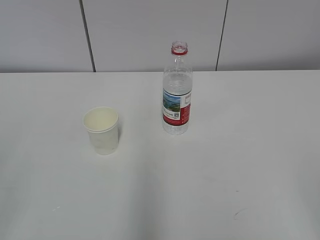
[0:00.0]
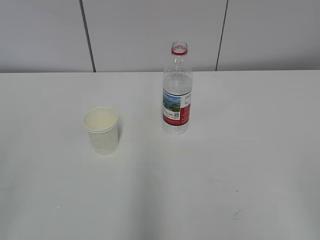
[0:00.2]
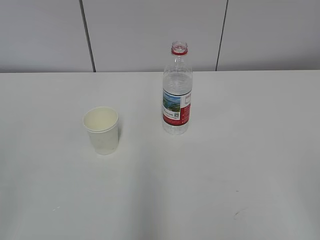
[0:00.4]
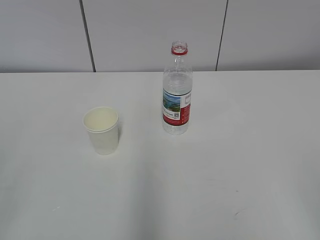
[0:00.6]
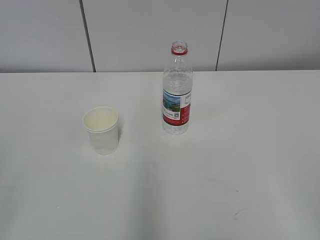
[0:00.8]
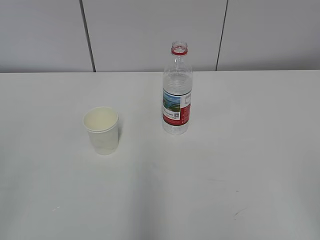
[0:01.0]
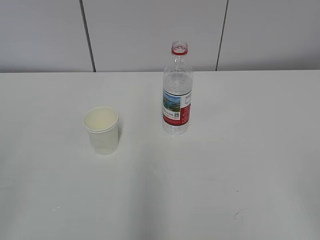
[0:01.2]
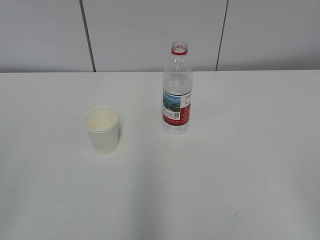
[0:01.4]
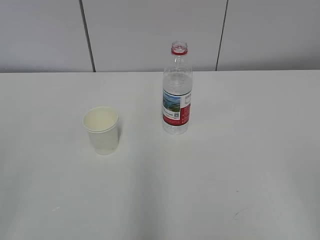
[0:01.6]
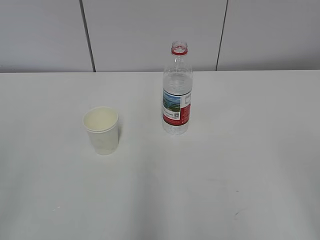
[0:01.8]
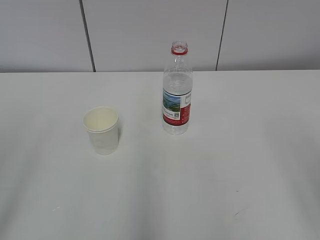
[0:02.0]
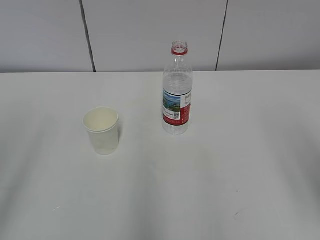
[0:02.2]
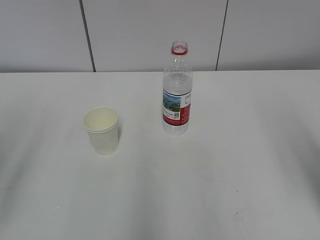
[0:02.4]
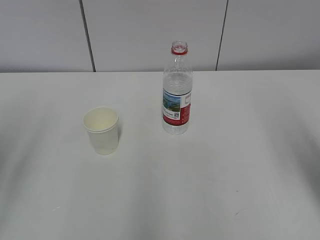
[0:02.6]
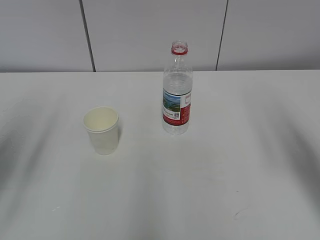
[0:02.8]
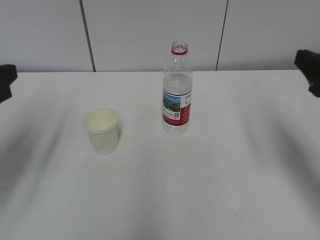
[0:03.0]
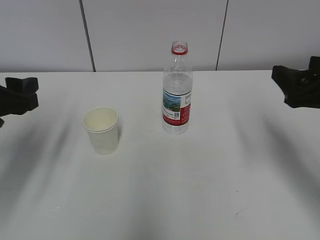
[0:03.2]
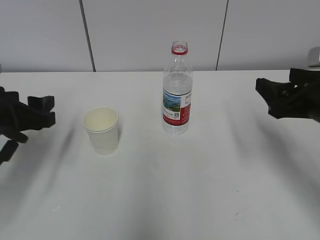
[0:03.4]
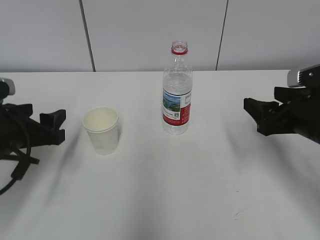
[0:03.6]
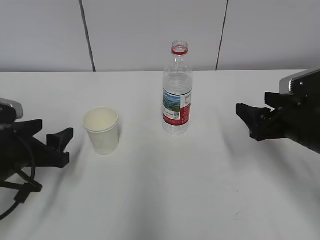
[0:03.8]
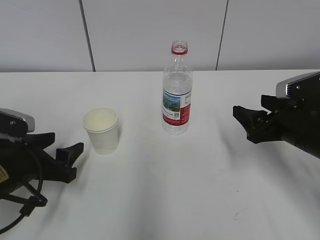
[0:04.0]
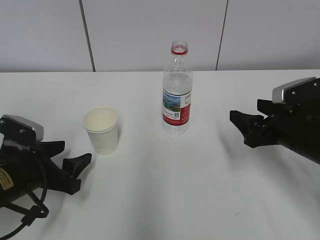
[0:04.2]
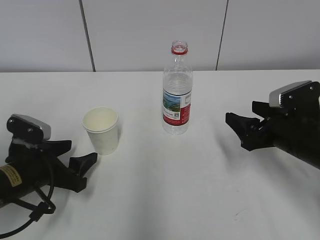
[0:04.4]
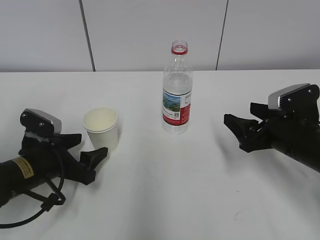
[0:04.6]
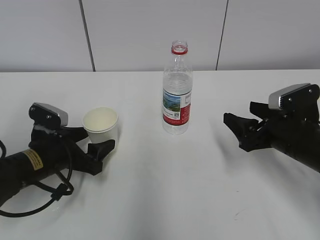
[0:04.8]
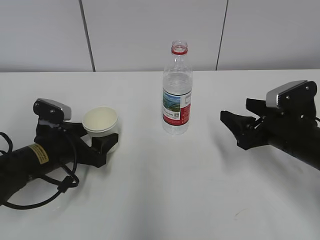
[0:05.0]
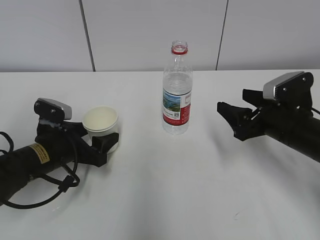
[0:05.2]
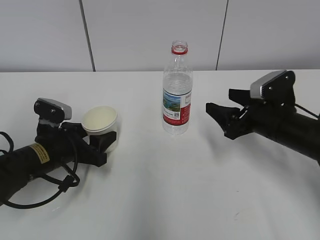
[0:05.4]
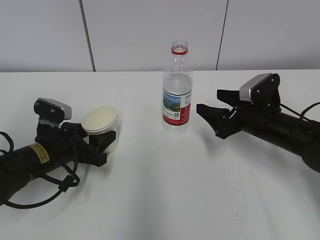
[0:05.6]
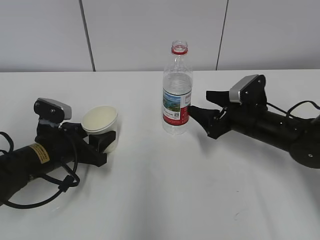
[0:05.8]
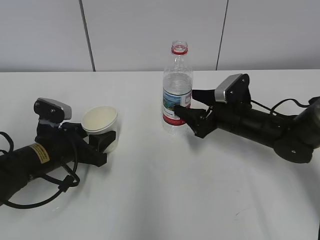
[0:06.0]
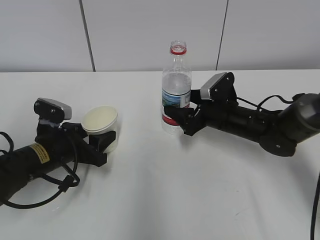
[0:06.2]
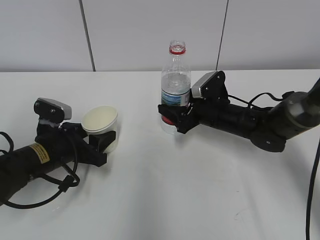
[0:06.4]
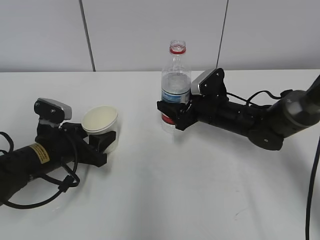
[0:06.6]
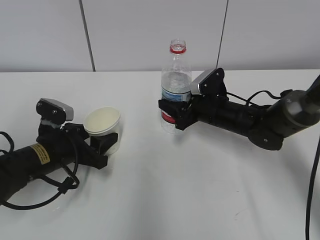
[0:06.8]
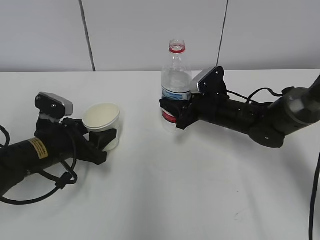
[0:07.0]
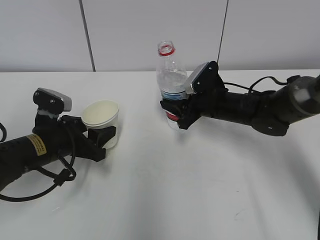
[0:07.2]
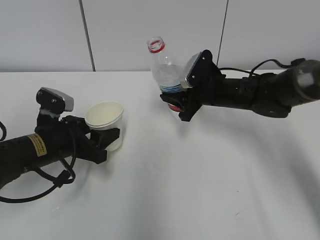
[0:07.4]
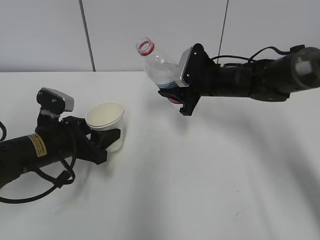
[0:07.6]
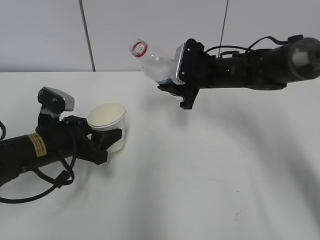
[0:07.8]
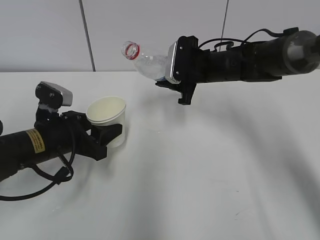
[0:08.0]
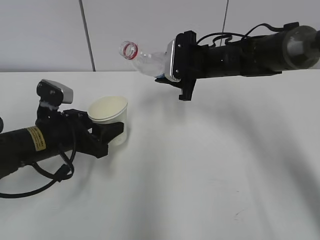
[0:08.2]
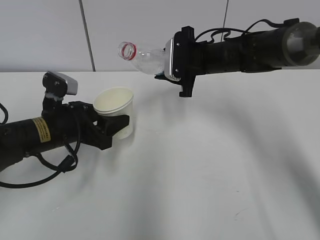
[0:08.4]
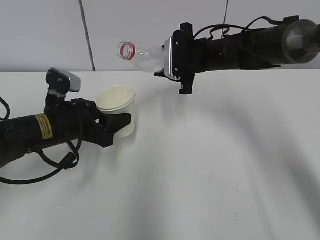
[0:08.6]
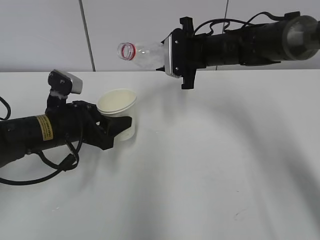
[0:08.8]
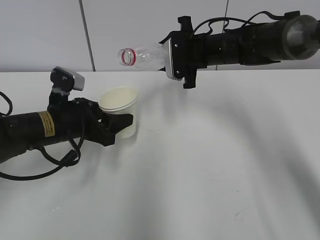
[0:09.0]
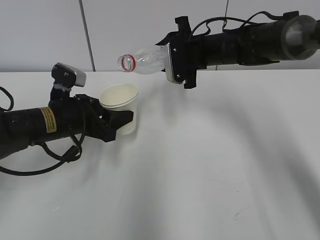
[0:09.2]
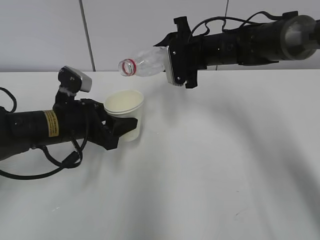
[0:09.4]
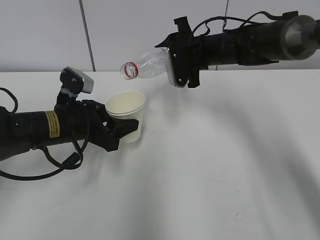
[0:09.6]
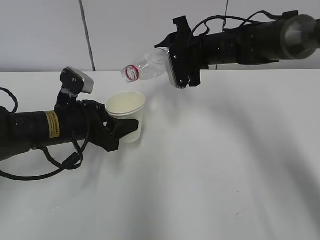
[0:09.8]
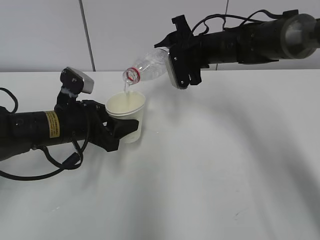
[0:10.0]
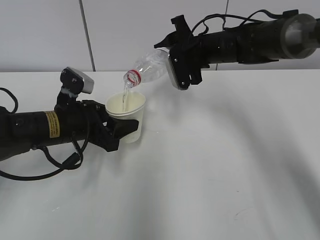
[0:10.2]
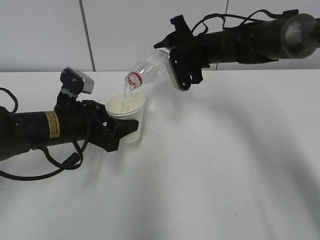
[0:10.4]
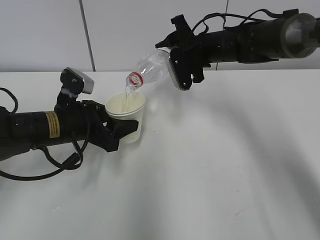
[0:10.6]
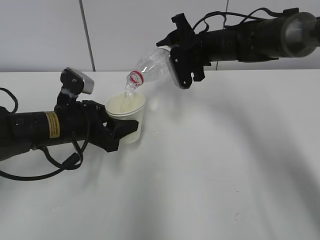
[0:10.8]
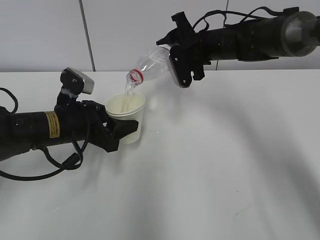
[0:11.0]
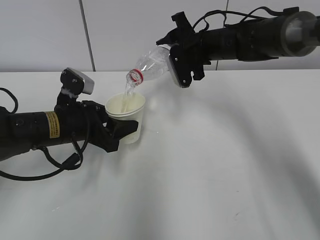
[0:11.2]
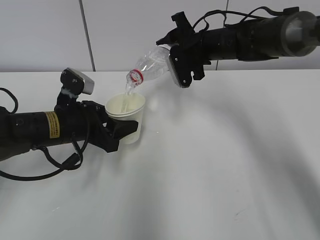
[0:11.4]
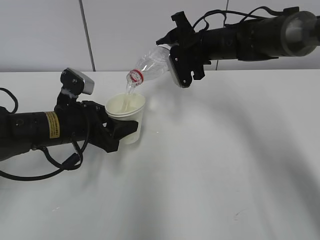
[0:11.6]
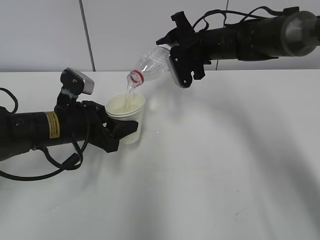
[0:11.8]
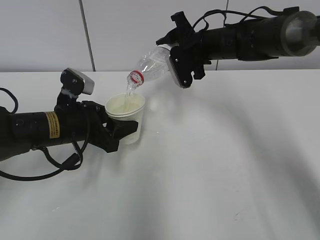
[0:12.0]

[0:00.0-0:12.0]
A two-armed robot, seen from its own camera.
Step, 0:00.0 to 0:05.6: Grab the paper cup with the left hand.
Step, 0:06.0 to 0:08.2: Lift the paper cup with the left hand.
Step, 0:08.4 to 0:10.4: Fill water with the left hand.
Step, 0:08.4 to 0:10.4: Pour water with the right hand.
Step, 0:10.6 to 0:11.2: Collect water with the right hand.
0:01.6 to 0:03.0: The two grippers go some 25 cm forward.
0:03.0 to 0:04.4: The left gripper heads downward, covering approximately 20 cm. Meanwhile the right gripper goes approximately 15 cm downward and forward.
0:04.4 to 0:06.0: The right gripper shifts some 10 cm forward and to the left; the left gripper is displaced forward by about 5 cm, and closes its fingers.
0:06.0 to 0:07.6: The right gripper goes some 10 cm forward and upward, and closes.
0:07.6 to 0:09.0: The right gripper moves upward, some 5 cm.
0:10.4 to 0:12.0: Neither gripper changes place.

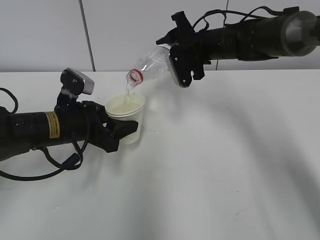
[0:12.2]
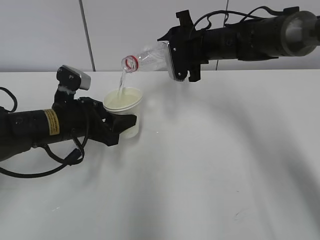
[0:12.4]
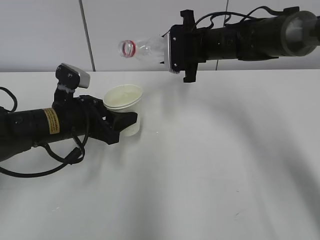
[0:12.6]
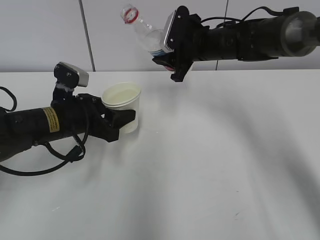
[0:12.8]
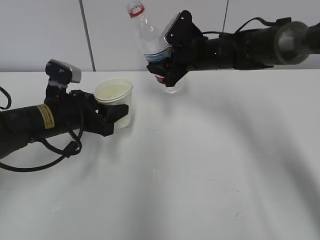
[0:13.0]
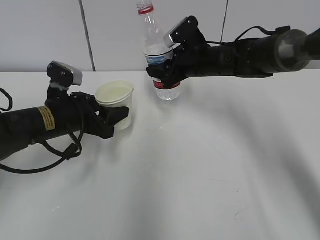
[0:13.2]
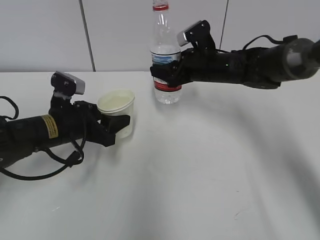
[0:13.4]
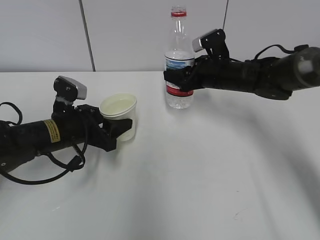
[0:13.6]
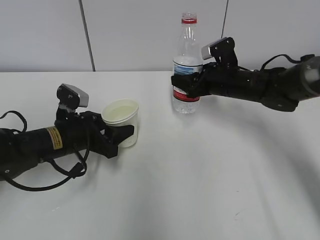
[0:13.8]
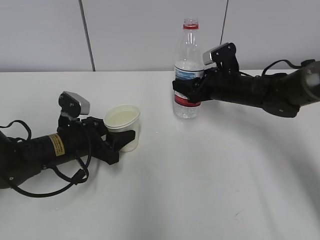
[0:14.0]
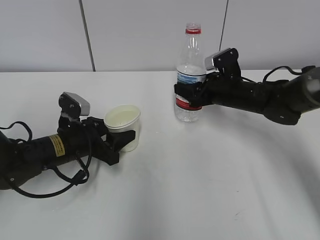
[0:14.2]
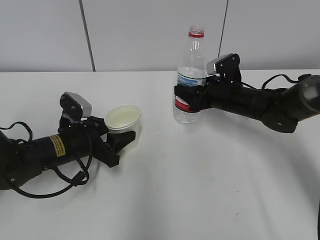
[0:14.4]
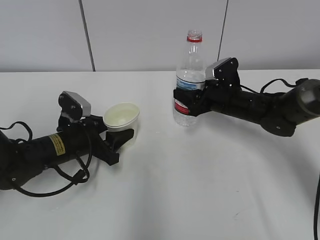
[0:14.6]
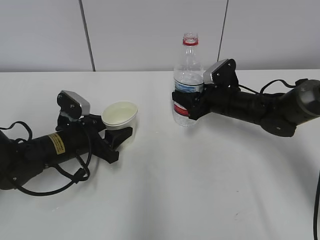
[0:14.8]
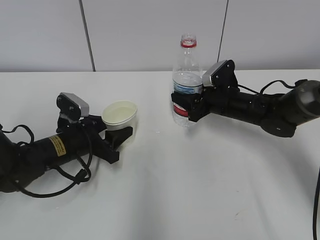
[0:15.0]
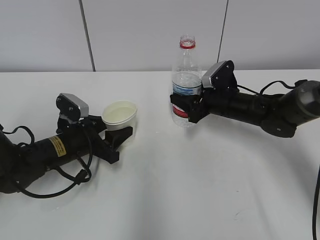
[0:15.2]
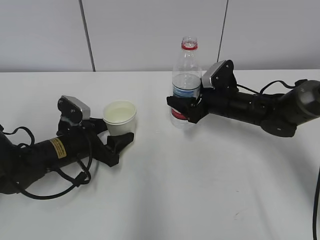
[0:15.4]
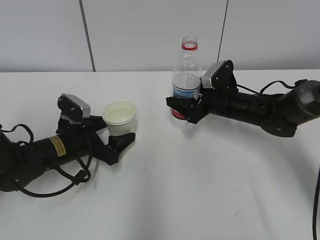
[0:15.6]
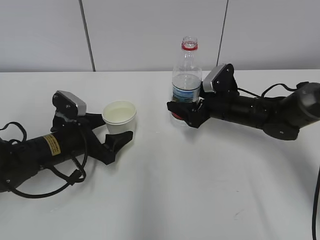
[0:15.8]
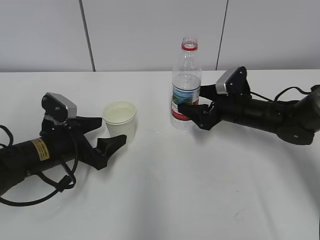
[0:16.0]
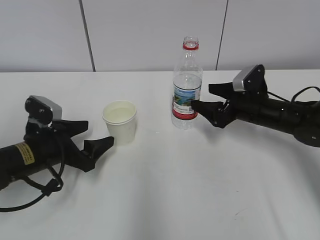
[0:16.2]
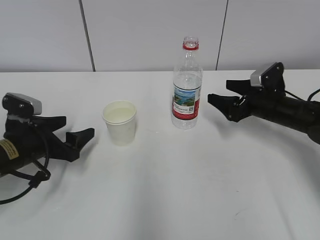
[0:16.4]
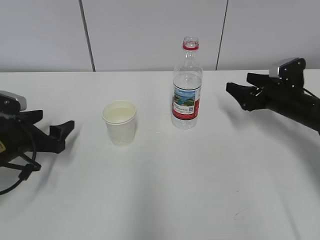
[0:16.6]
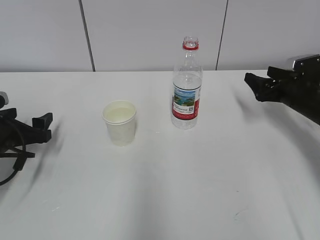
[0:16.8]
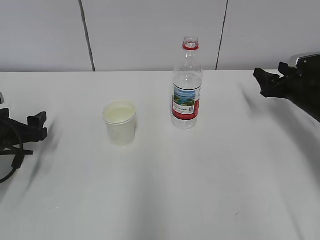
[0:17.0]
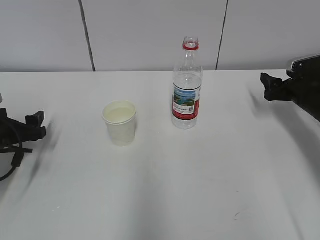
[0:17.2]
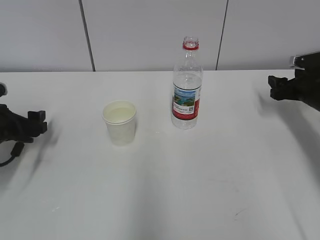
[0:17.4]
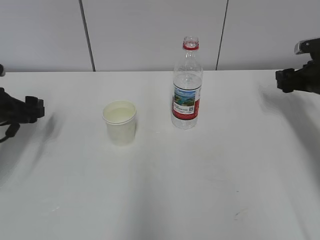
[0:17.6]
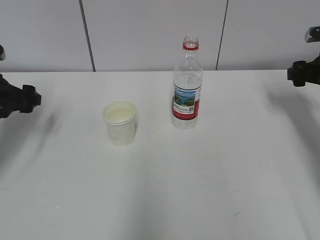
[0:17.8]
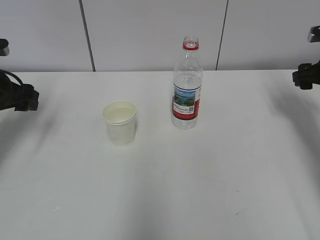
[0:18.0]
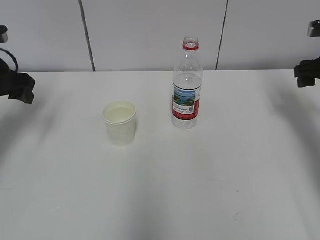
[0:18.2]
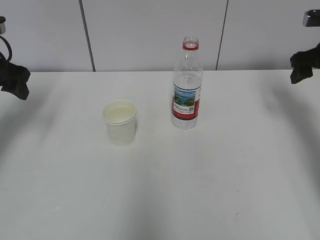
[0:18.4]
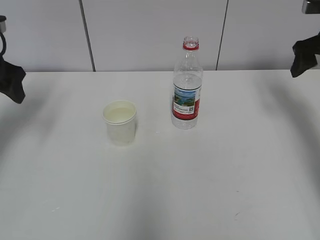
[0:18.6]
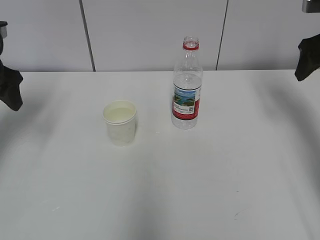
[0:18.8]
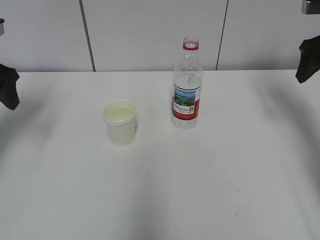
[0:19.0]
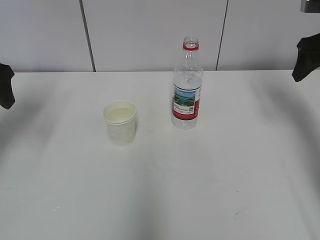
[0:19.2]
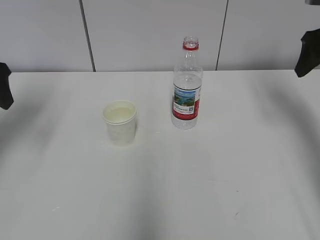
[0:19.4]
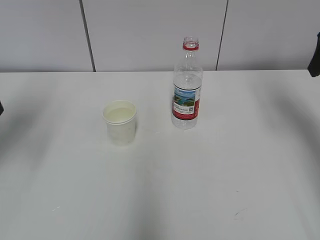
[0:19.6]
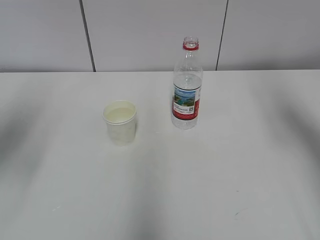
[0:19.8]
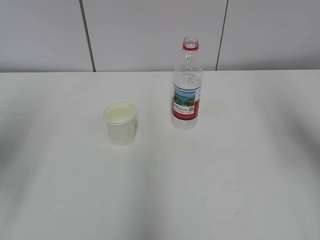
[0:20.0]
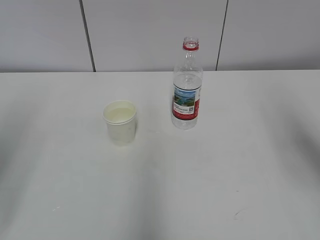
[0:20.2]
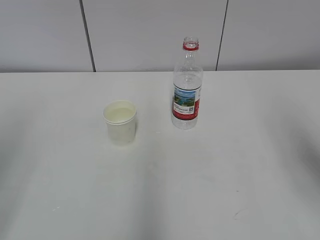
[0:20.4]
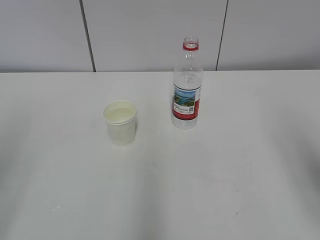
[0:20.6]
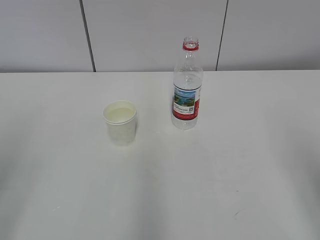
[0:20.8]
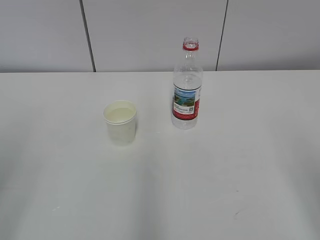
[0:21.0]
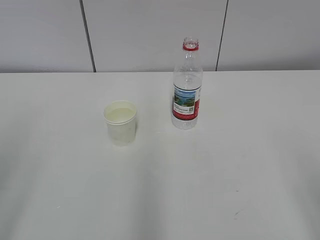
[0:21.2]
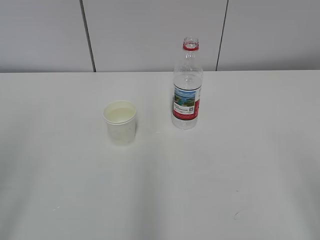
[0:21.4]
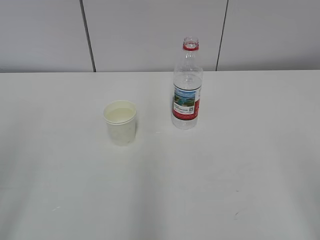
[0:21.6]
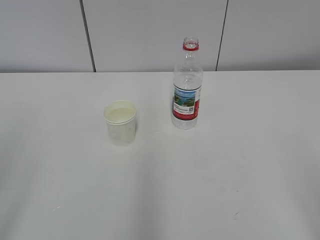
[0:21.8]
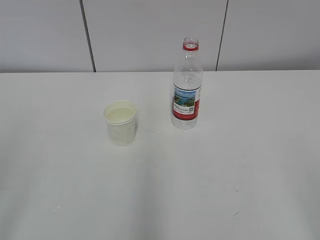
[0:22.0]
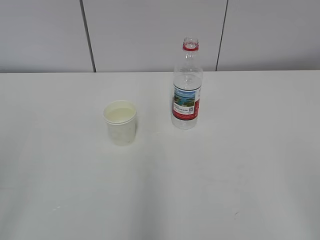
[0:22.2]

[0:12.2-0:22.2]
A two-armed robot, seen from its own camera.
0:12.2 to 0:13.6: The right gripper shifts about 5 cm downward.
0:13.6 to 0:15.0: The right gripper heads downward, covering about 5 cm.
0:15.0 to 0:16.4: The right gripper shifts roughly 10 cm to the right, and opens. Meanwhile the left gripper goes some 5 cm to the left, and opens.
0:16.4 to 0:18.0: The left gripper goes some 15 cm upward, to the left and forward. The right gripper is displaced to the right and upward by approximately 15 cm.
0:18.0 to 0:19.4: The two grippers go some 10 cm upward.
0:19.4 to 0:20.8: The two grippers go roughly 25 cm backward.
